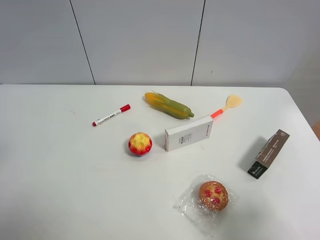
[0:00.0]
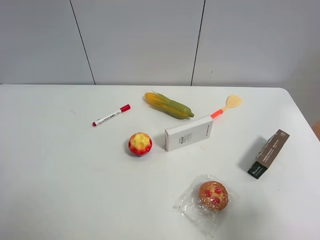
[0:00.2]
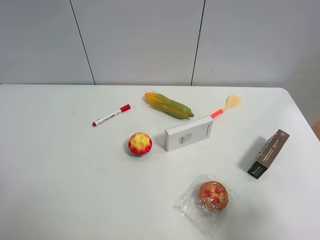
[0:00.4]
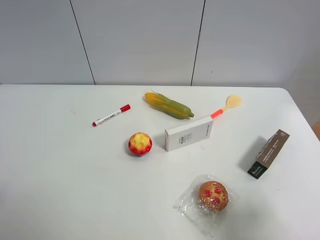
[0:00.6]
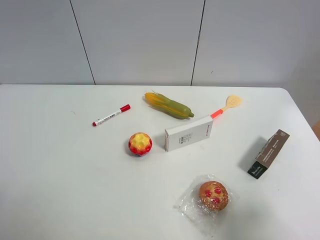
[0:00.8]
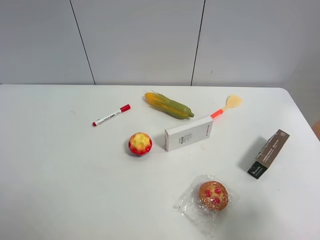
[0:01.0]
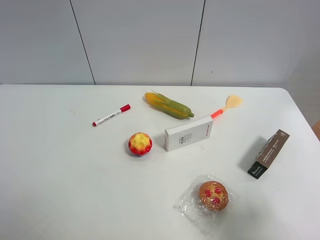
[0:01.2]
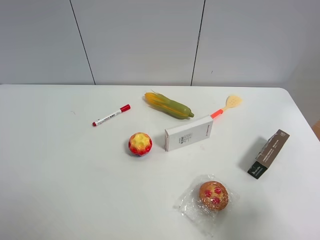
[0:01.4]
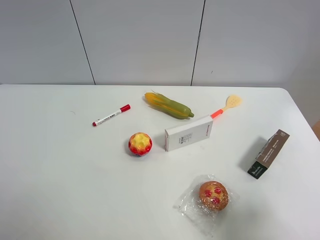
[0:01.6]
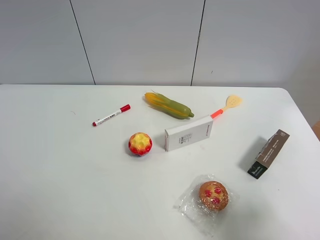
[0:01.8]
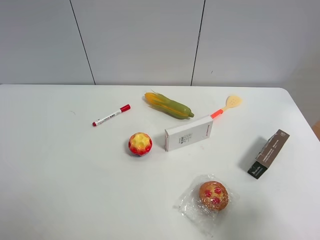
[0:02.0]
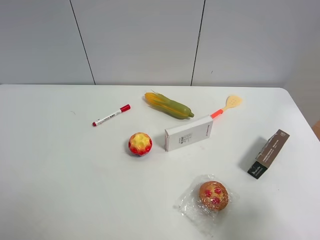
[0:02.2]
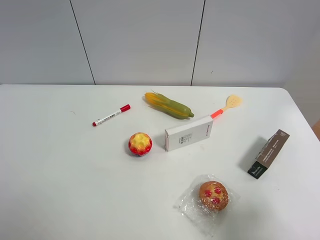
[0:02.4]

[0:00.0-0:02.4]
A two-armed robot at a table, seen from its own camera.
Task of the whole recording: the gripper move the object.
0:01.2 to 0:02.4: Neither gripper changes place.
